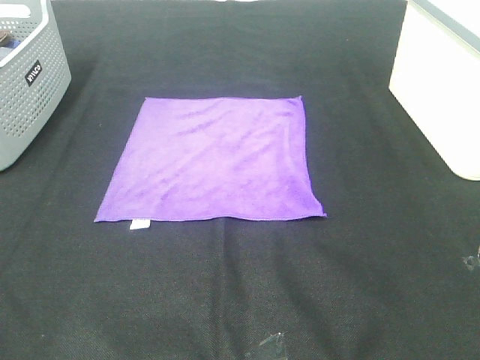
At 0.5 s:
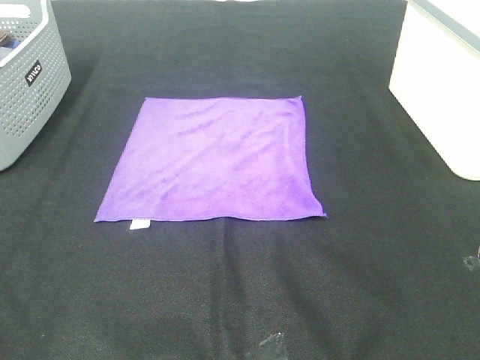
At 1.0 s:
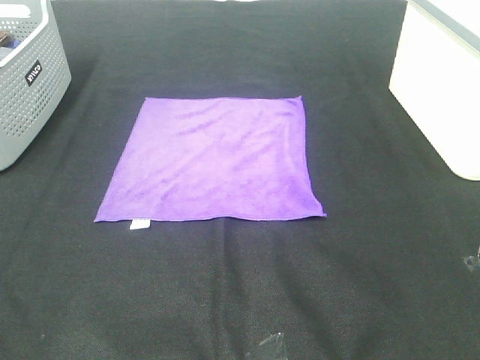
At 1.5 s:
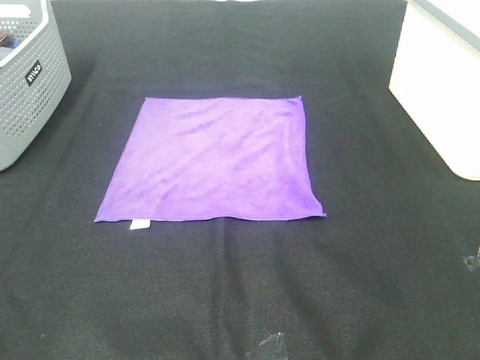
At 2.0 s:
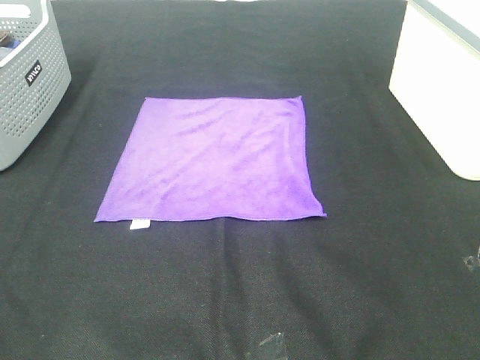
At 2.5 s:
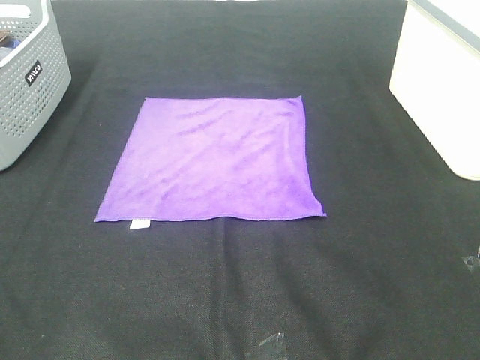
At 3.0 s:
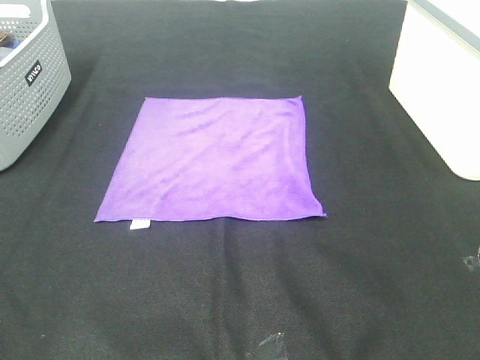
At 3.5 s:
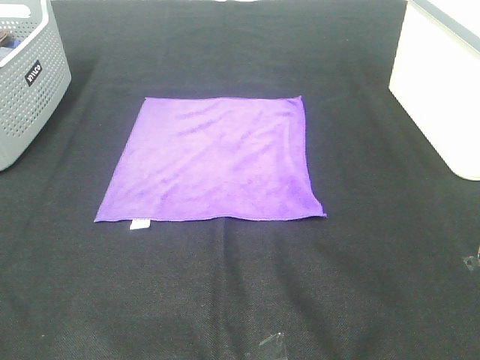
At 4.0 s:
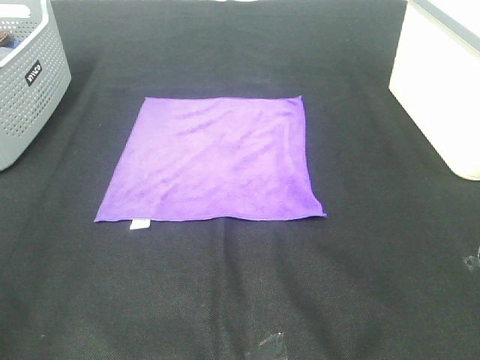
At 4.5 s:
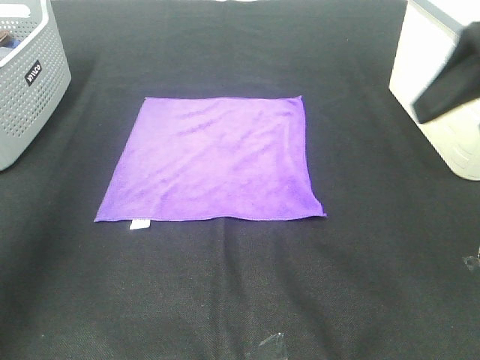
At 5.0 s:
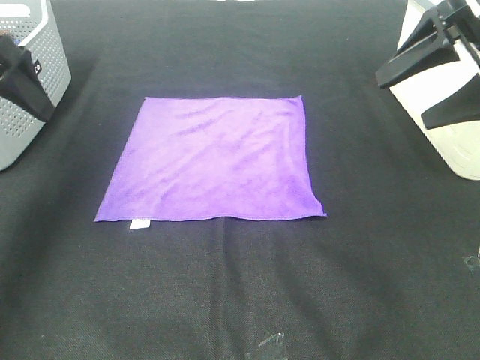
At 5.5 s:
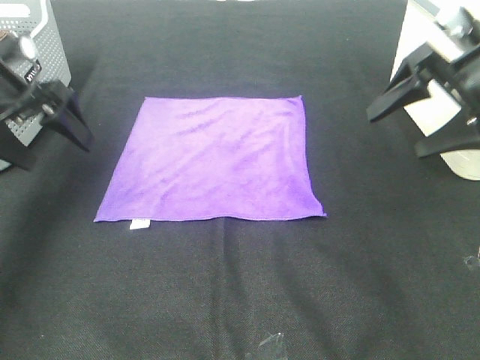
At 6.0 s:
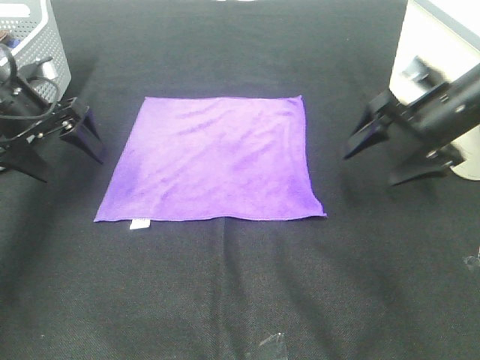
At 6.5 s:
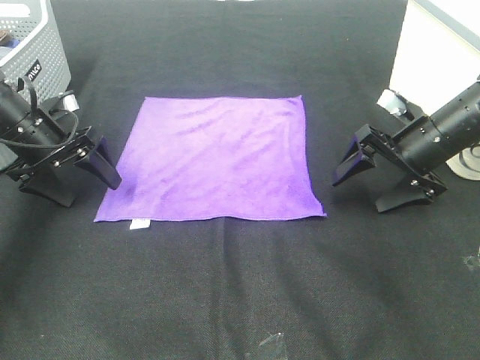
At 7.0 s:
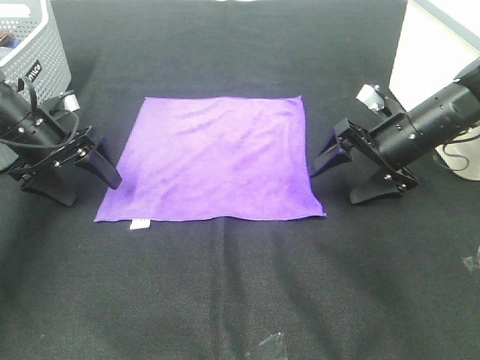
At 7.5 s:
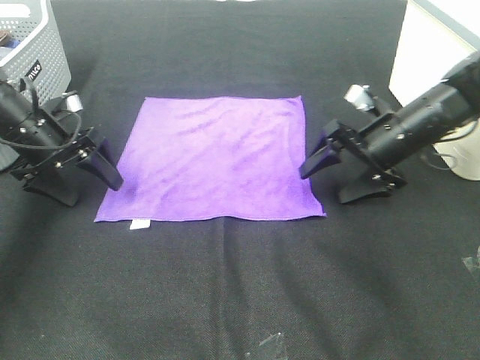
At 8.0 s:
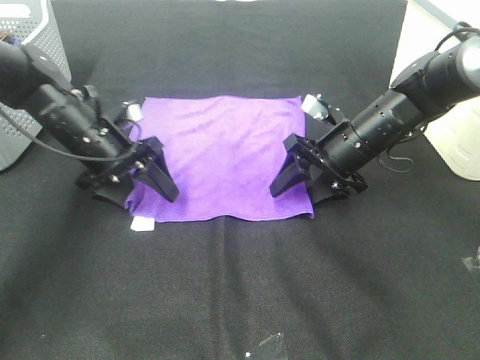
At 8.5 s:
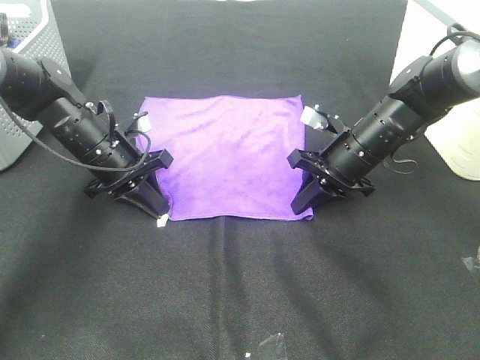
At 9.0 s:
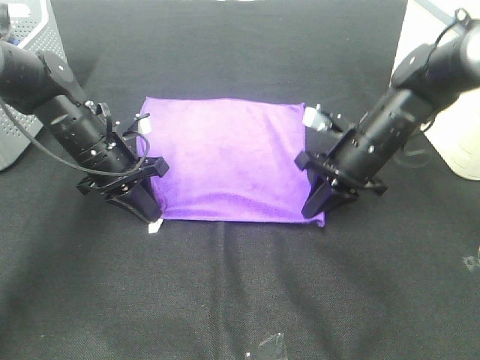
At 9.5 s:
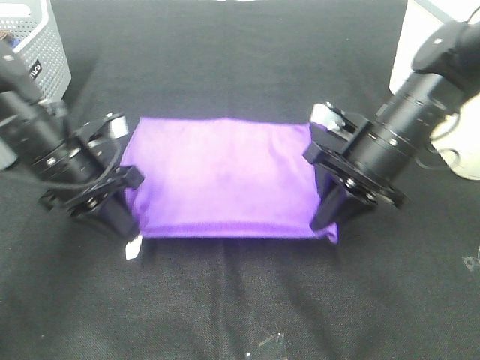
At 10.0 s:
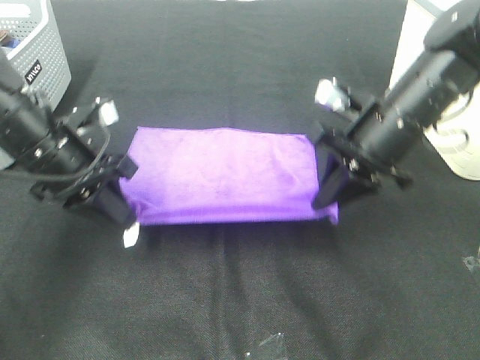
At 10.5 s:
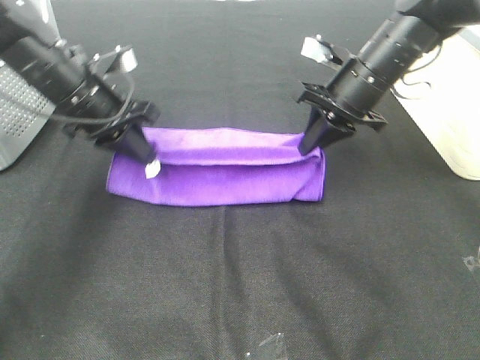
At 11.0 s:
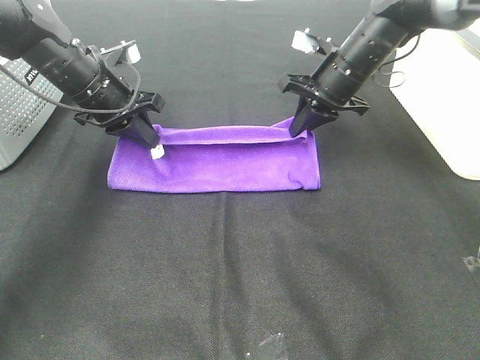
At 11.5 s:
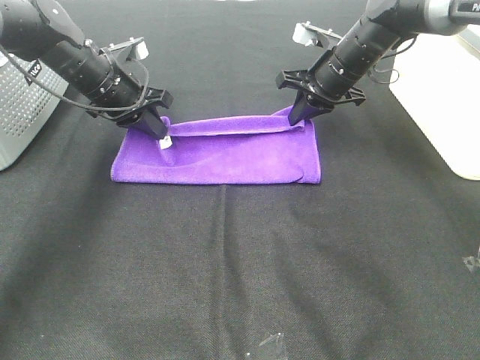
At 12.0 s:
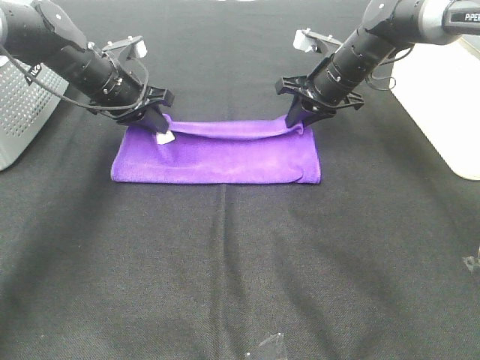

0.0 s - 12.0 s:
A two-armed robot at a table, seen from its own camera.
Task of the whole recording: Fold towels.
Step, 0.0 s - 8.5 s: Left hand: grab the bottom left corner of purple towel.
Step, 0.0 s - 8.5 s: Right hand: grab the bottom right corner of purple towel.
Step, 9.0 s - 11.5 s: Left hand: fold the purple towel up.
Step, 9.0 s - 11.5 s: Right hand: fold the purple towel up.
0.0 s - 2.0 s: Neither gripper changes place.
4.0 s - 6.0 s: Both grippers travel together forward and downward, approximately 35 cm.
6.0 s - 8.0 s: The left gripper heads to the right and downward, covering some 10 cm. Meanwhile the right gripper is displaced to the left and downward by about 10 cm, and closes.
8.0 s - 10.0 s: The right gripper goes about 10 cm upward and backward, and closes; the left gripper is displaced backward and upward by roughly 10 cm, and closes its fingers.
10.0 s - 12.0 s: Both grippers travel together forward, roughly 15 cm.

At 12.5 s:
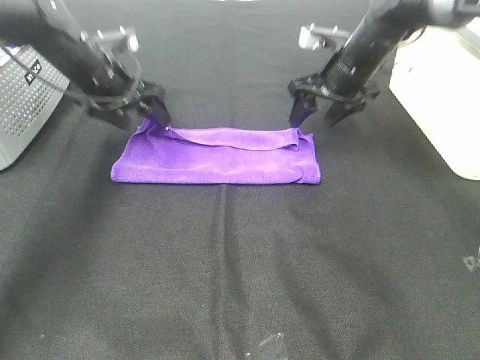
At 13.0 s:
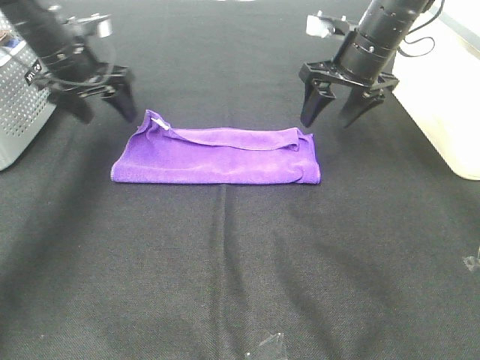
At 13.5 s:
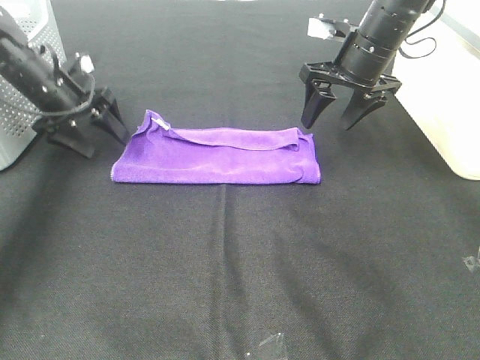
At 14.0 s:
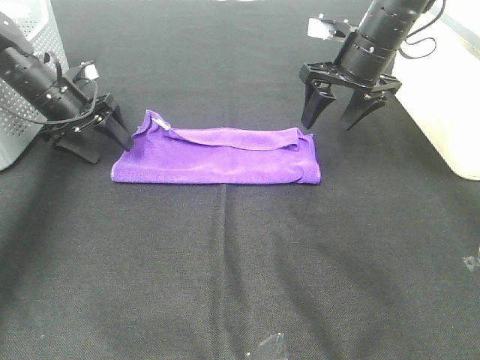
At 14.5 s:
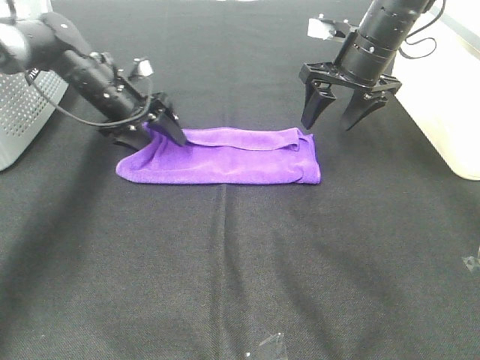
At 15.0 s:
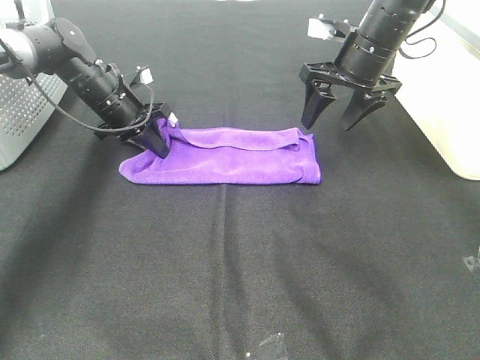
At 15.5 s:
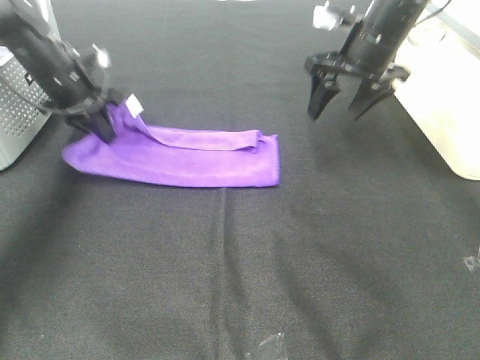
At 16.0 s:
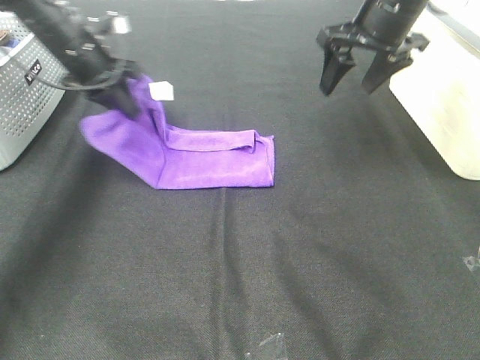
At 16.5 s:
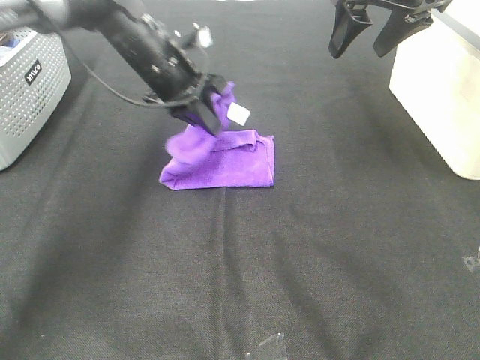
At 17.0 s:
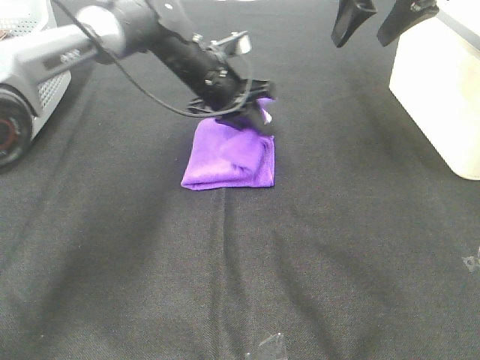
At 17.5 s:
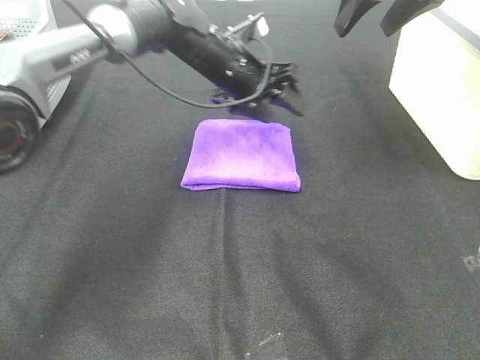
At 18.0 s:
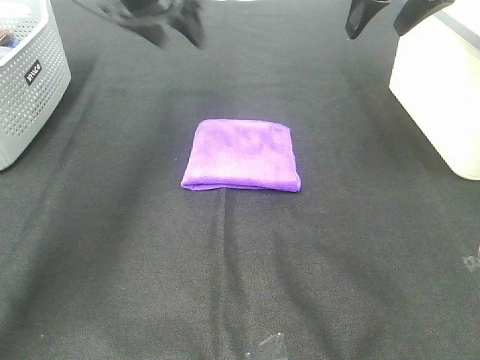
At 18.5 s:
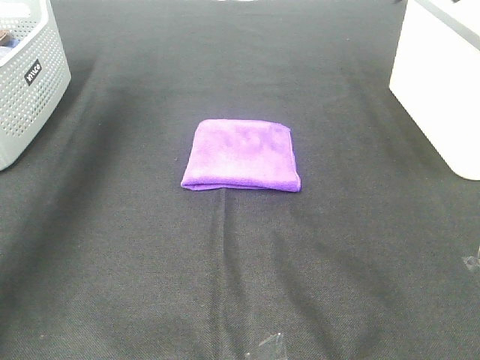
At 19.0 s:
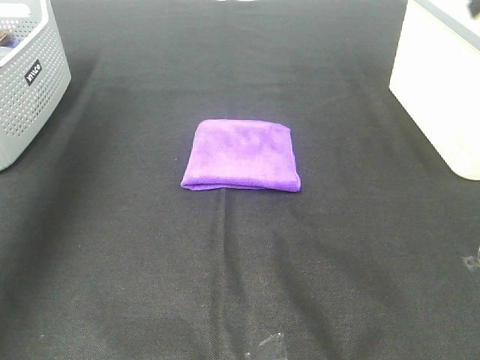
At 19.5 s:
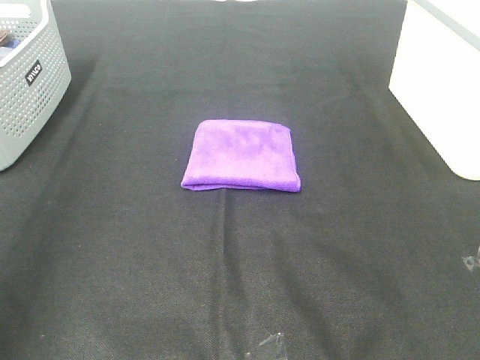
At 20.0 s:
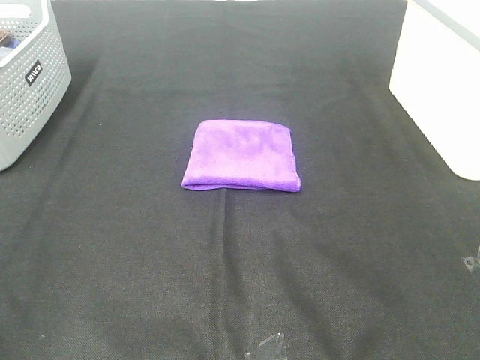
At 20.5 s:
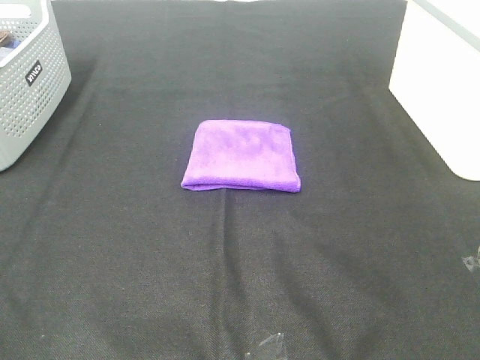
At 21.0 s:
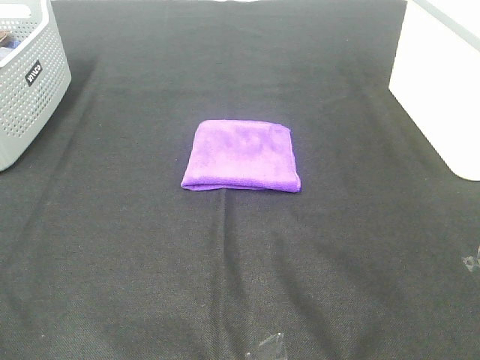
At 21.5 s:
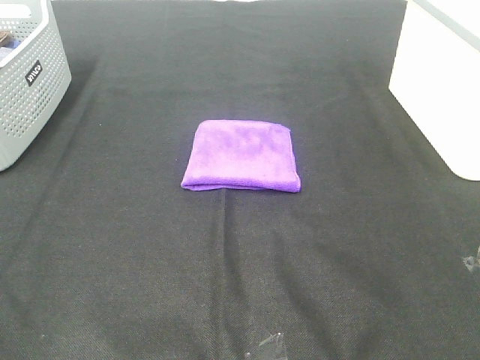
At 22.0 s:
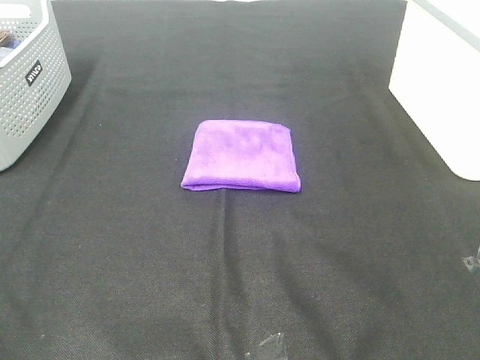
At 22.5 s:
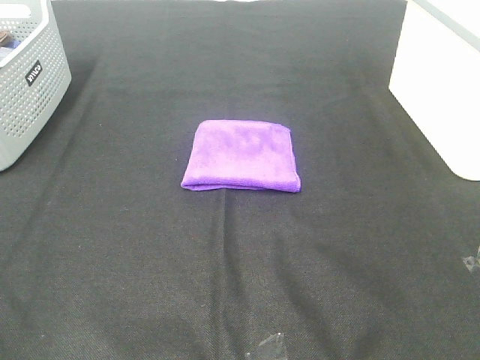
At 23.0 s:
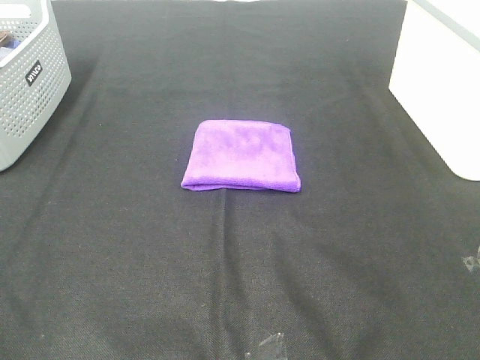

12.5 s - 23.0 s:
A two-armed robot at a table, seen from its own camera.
Task of the whole recording: Fold towels.
Step, 12.5 s - 16.5 s: Left hand: fold the purple towel from left to right.
12.5 s - 14.5 s: The left gripper goes about 5 cm downward.
14.5 s - 16.5 s: The left gripper shifts roughly 10 cm to the right and upward, and closes its fingers. The right gripper heads upward, covering about 10 cm.
16.5 s - 19.0 s: The right gripper travels backward, upward and to the right by some 20 cm. Meanwhile the left gripper moves upward, to the left and backward, about 35 cm, and opens.
19.0 s - 21.0 s: The left gripper shifts approximately 35 cm backward.
21.0 s - 23.0 s: Both grippers stay about where they are.

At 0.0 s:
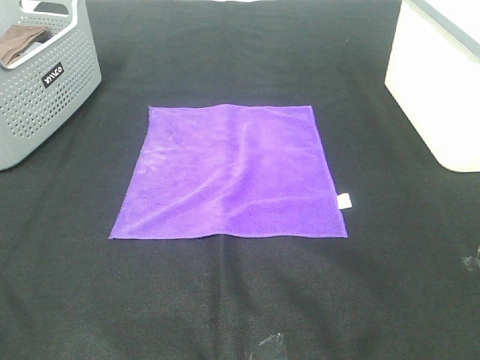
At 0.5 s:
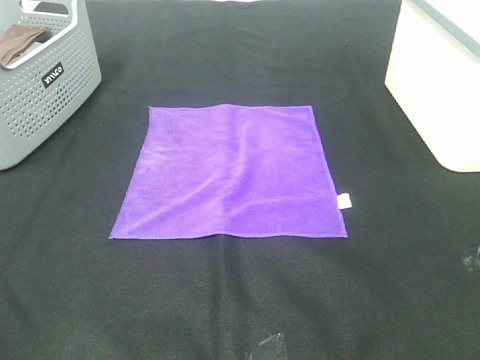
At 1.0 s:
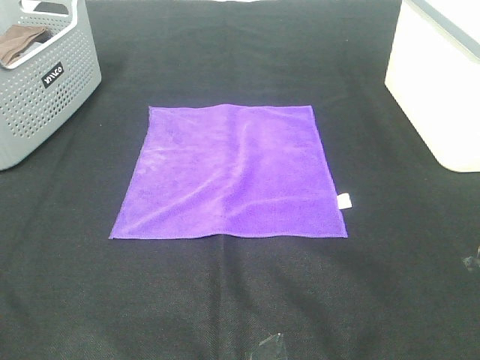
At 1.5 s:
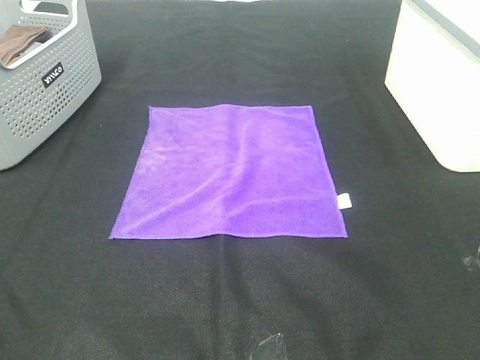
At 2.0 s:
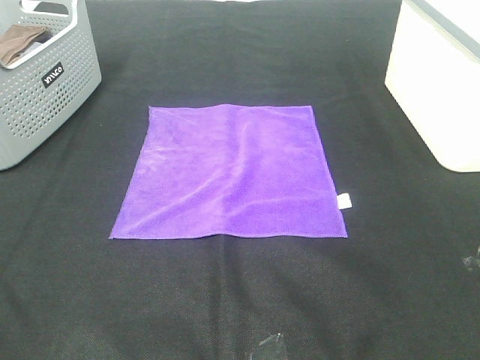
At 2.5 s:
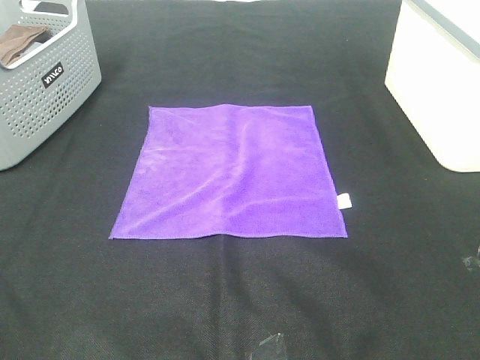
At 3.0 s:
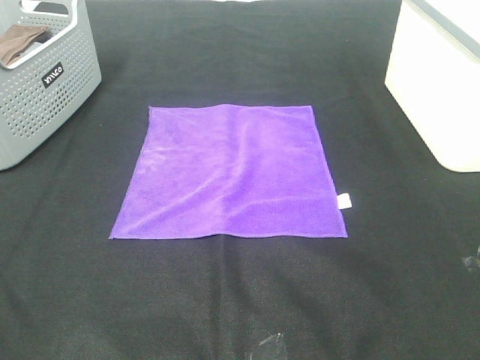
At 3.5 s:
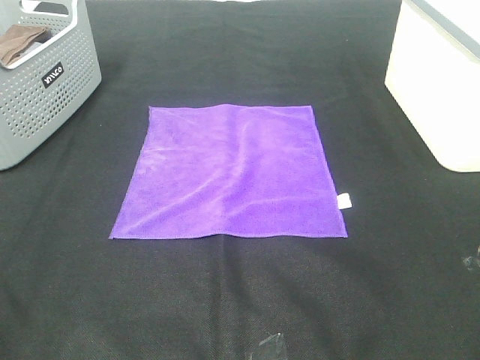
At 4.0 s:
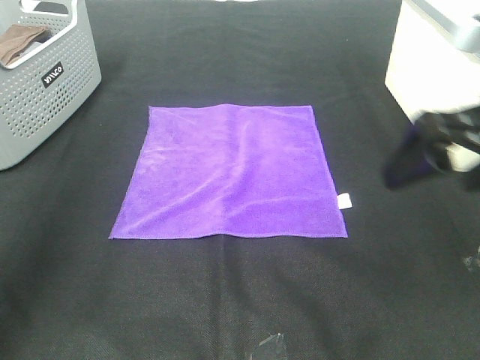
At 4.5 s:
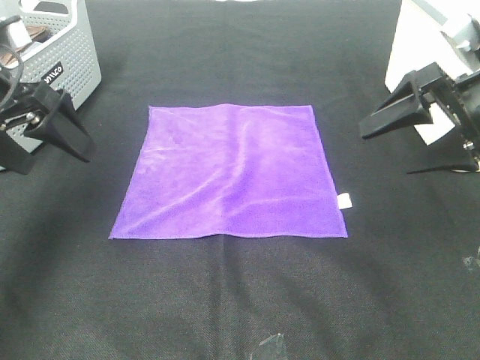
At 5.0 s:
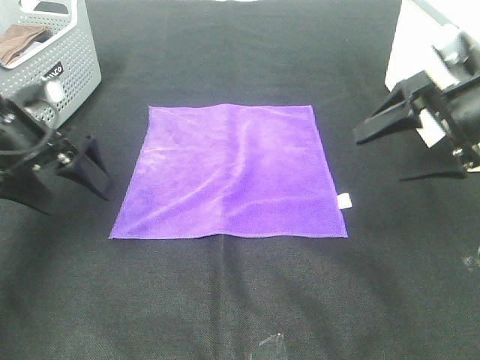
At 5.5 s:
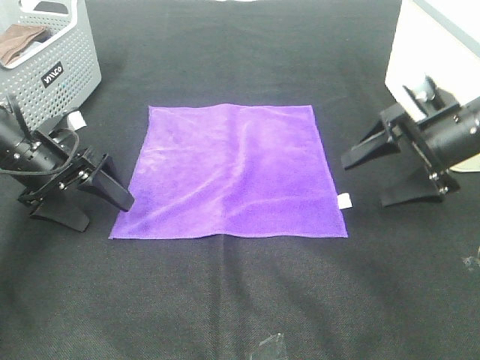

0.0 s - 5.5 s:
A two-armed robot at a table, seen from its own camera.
Task of the whole recording: Fold towels.
0.0 s - 2.0 s: Both grippers stay about where they are.
3.5 s - 5.5 s: Both grippers travel together forward and downward, about 35 cm.
